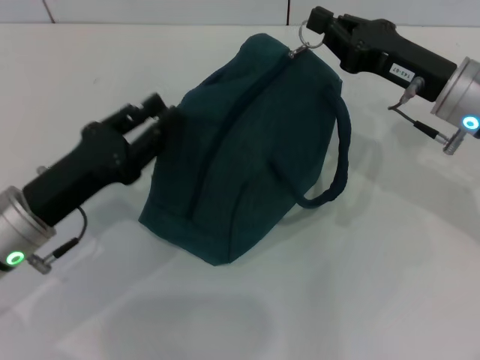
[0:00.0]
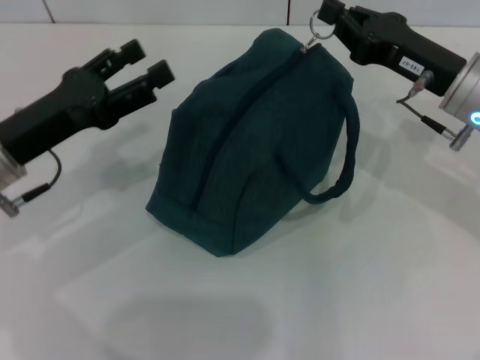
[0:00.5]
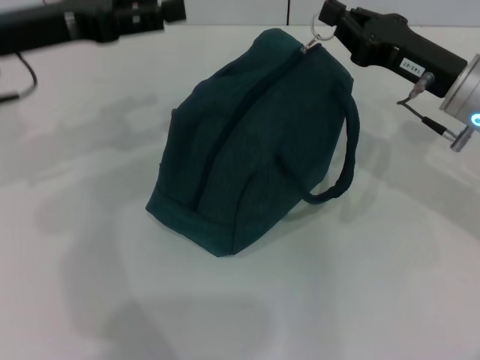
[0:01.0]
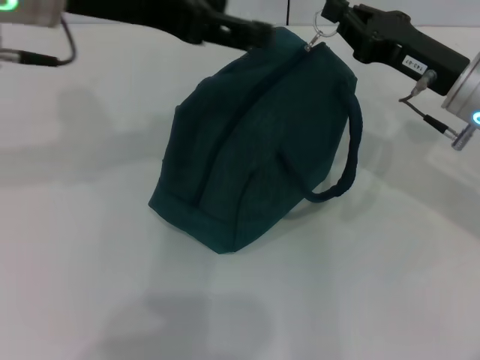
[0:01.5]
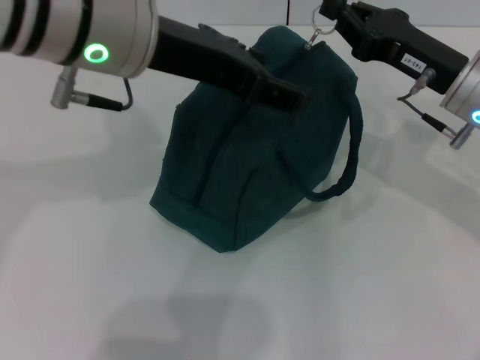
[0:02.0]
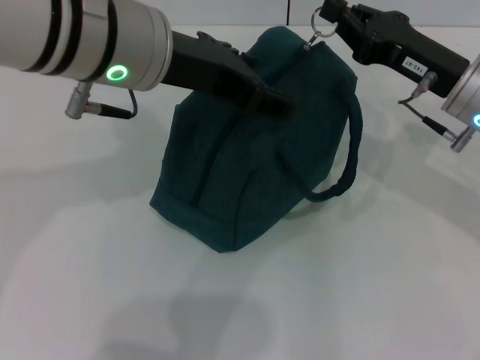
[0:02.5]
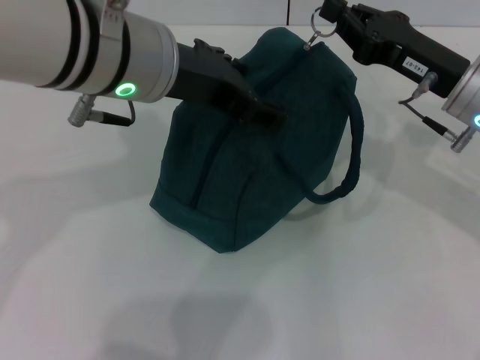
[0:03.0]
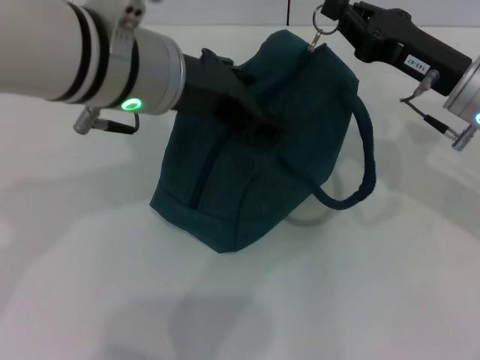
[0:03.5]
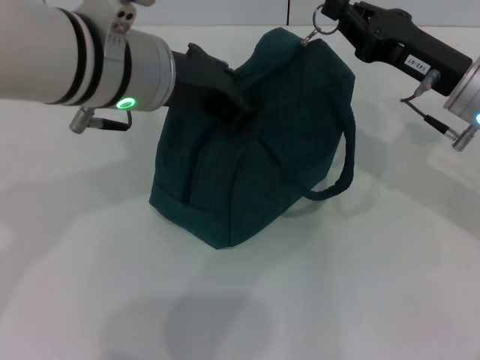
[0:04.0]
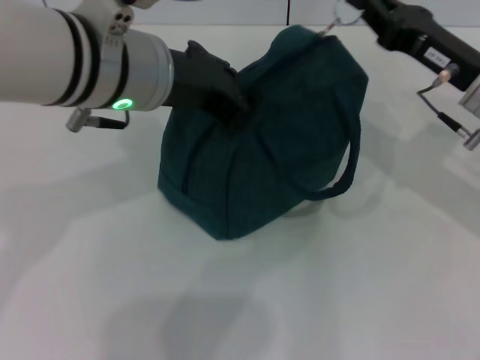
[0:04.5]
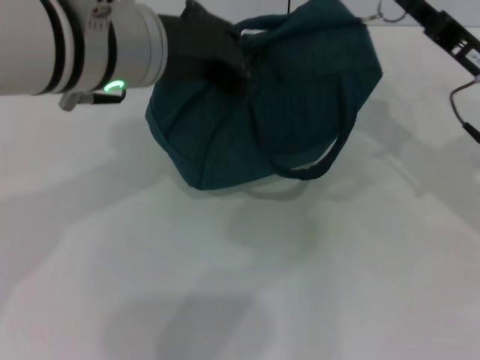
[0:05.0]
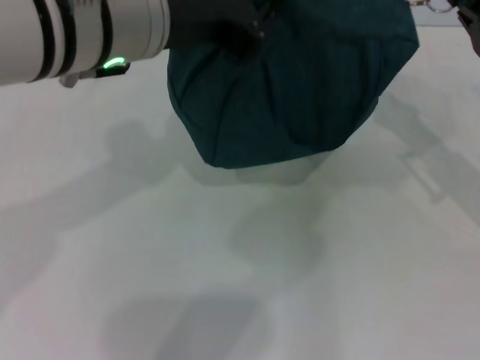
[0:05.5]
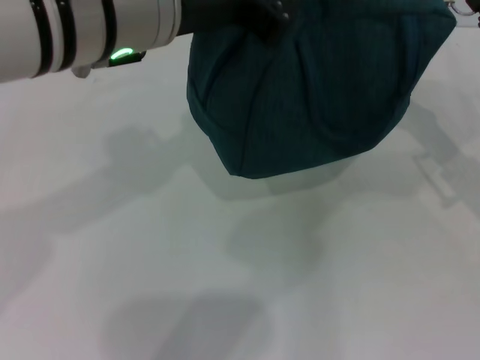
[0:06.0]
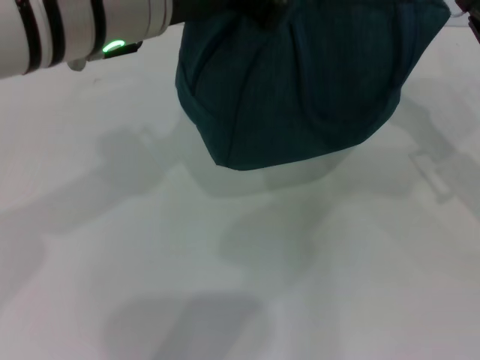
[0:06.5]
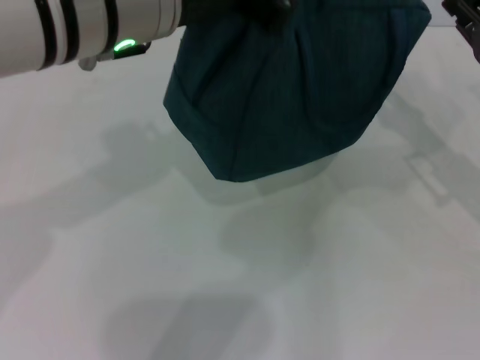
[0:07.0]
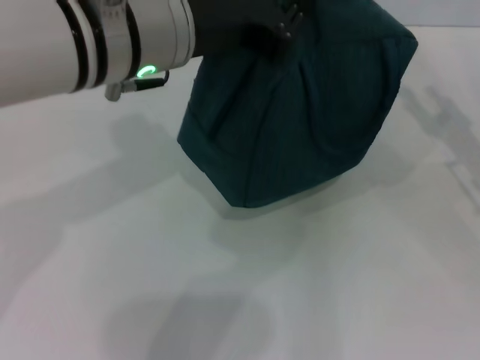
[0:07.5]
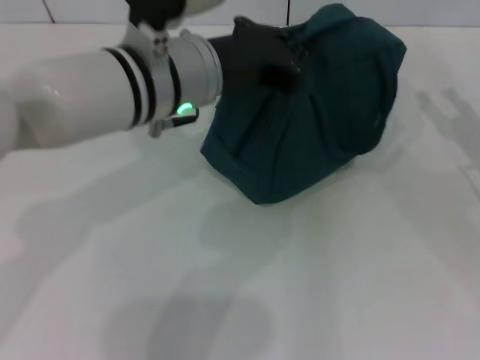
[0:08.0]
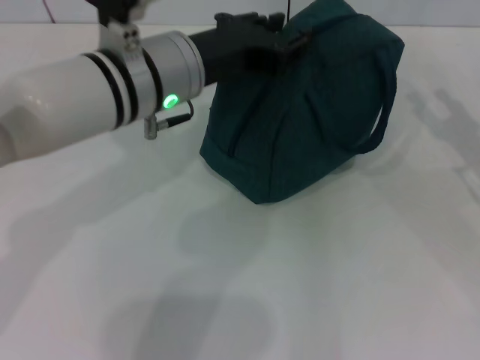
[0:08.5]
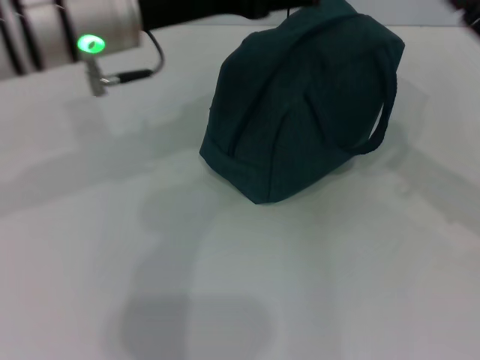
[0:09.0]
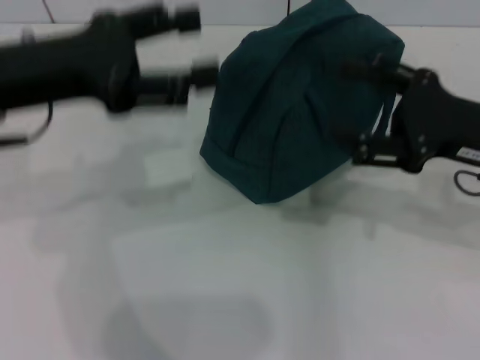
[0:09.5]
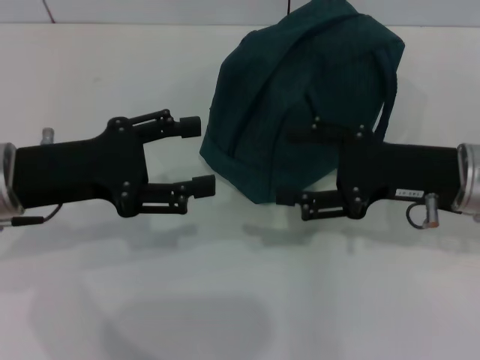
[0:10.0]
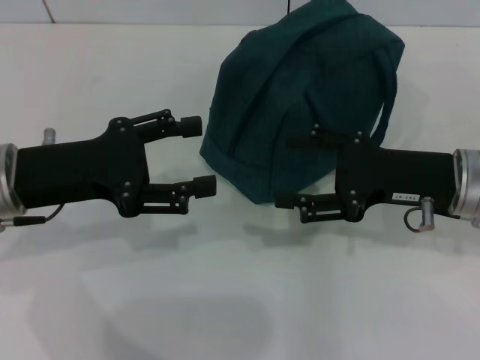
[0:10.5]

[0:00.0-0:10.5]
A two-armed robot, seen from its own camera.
Step, 0:00.0 to 0:07.0: Zip up the lunch bag with your right hand.
Step, 0:07.5 to 0:08.5: Hold the lunch bag with your left hand.
0:00.0 to 0:02.0: The left gripper travels upward and to the right by about 25 cm, and opens.
0:02.0 to 0:04.0: The left gripper closes.
0:04.0 to 0:06.5: The left gripper moves upward, some 5 cm, and closes up. Meanwhile the right gripper heads to the right, covering about 10 cm.
0:06.5 to 0:08.5: The right gripper changes place by roughly 5 cm, and opens up. The left gripper moves downward, about 10 cm.
0:08.5 to 0:10.5: The right gripper is displaced to the left by roughly 10 cm. The left gripper heads to the left and backward, covering roughly 15 cm, and opens up.
